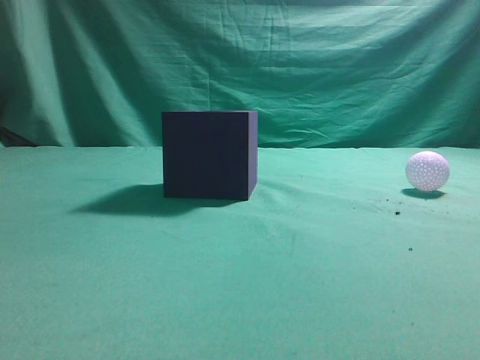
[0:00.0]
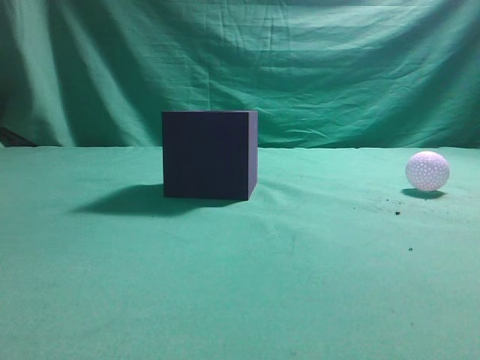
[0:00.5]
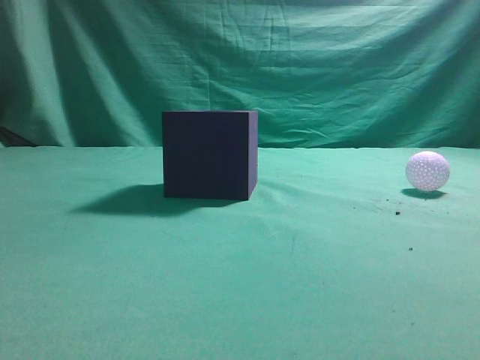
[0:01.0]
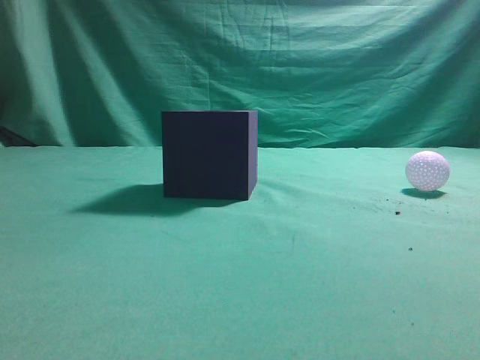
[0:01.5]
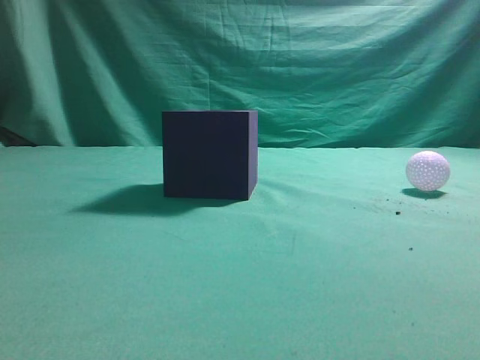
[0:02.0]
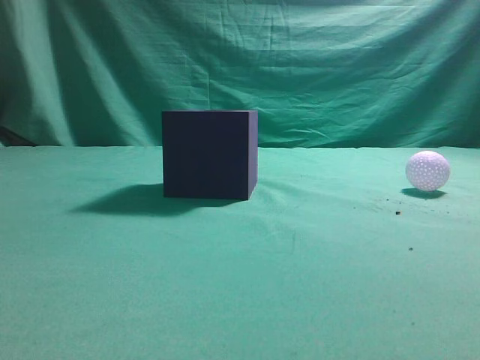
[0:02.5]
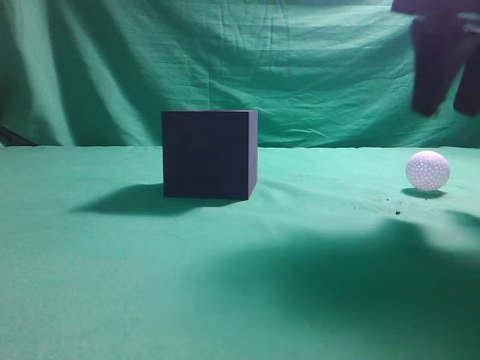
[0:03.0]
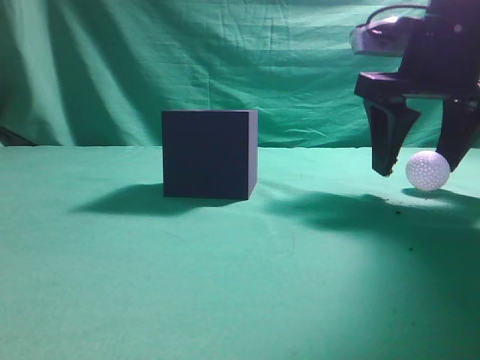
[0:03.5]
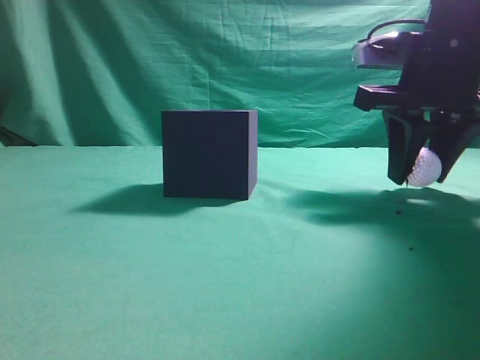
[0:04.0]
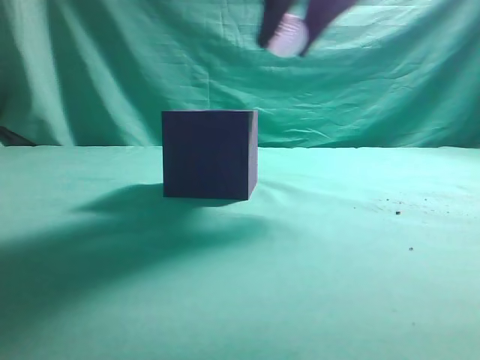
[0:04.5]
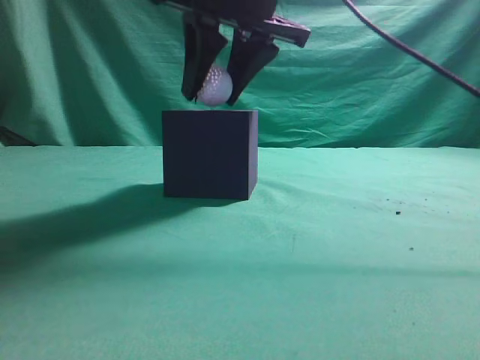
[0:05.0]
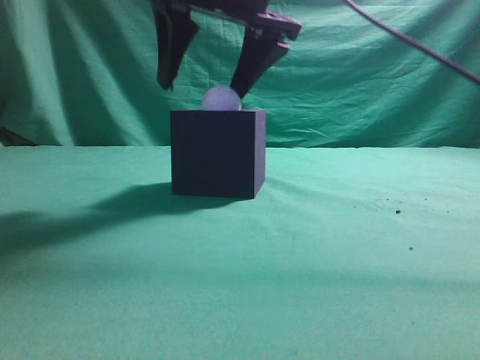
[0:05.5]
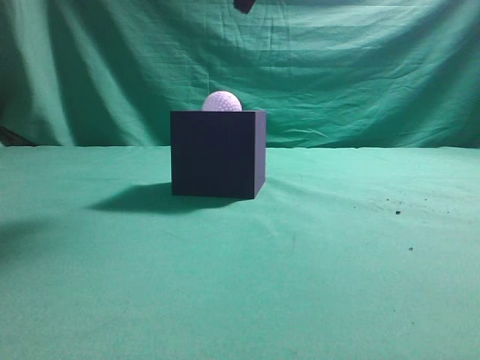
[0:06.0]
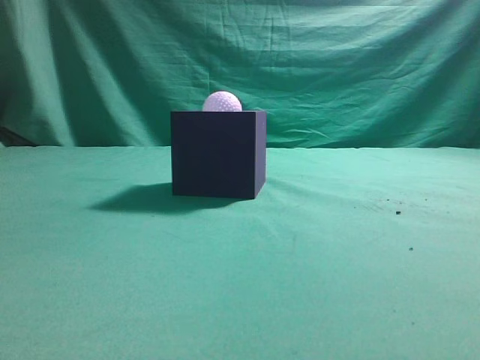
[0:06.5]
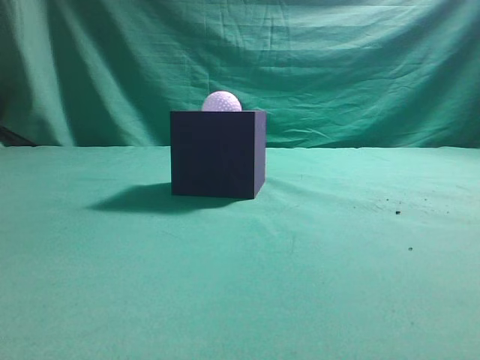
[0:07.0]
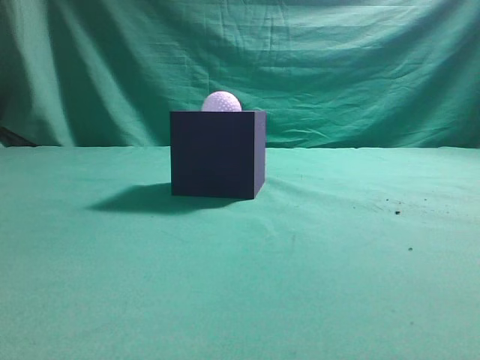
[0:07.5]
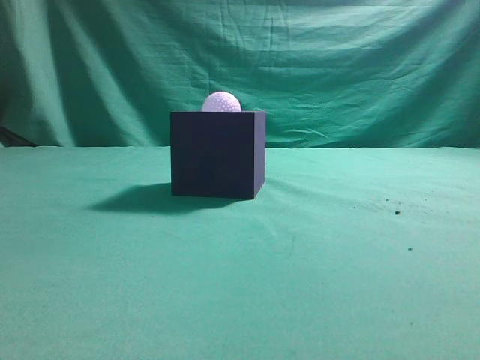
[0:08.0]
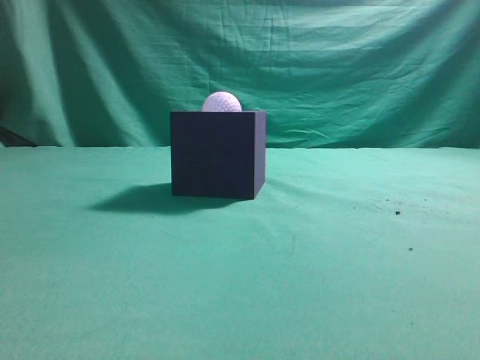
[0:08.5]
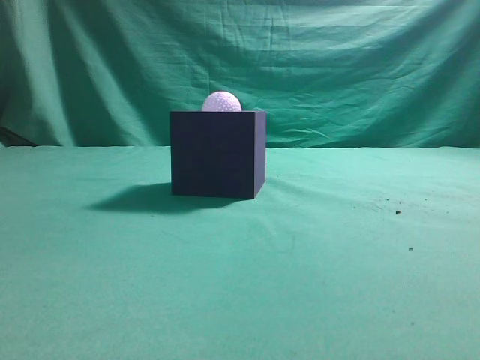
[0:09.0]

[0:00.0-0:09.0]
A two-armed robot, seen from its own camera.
Task of the whole recording: Pick up the ball and place it in the circular groove above the cube.
Step, 0:00.0 to 0:04.0: Grasp the sphere on the table.
Step, 0:04.5 to 0:05.5: Place the sphere into the sphere-shaped recess.
0:02.0 to 0:04.5: The right gripper is displaced forward and to the left by about 30 cm, and opens.
0:04.5 to 0:07.0: The right gripper travels backward, to the right and upward by approximately 25 cm, and closes.
